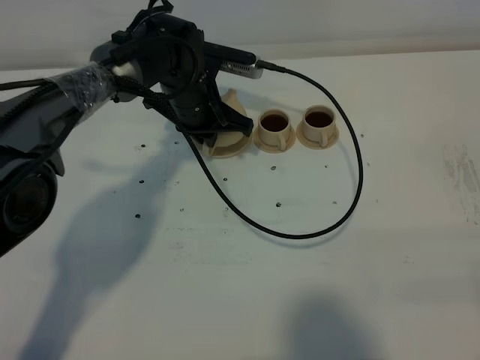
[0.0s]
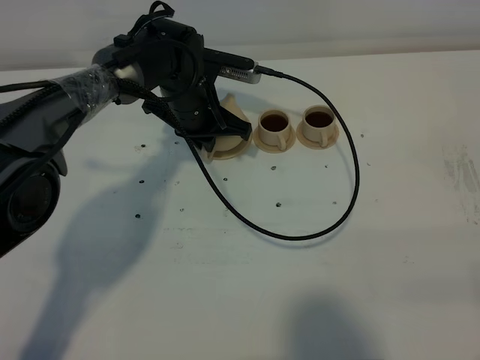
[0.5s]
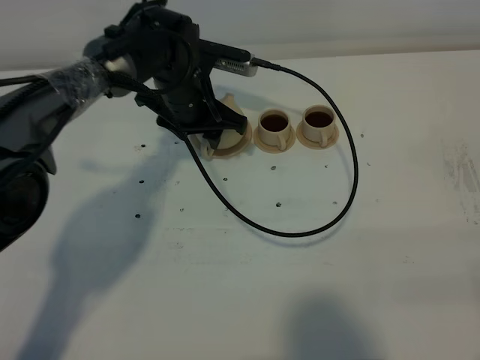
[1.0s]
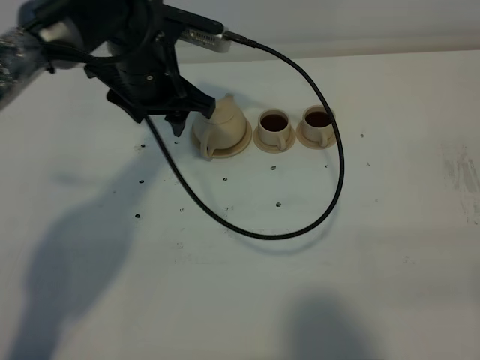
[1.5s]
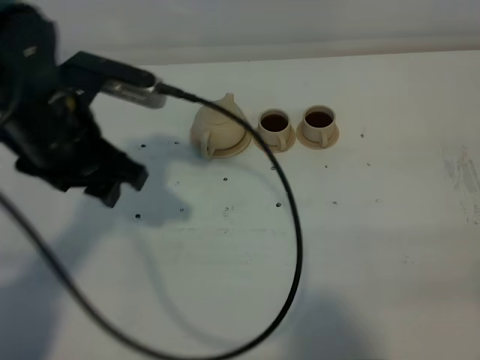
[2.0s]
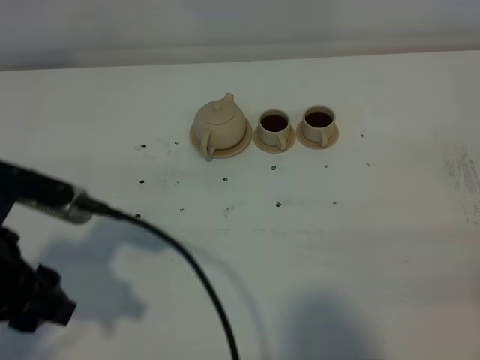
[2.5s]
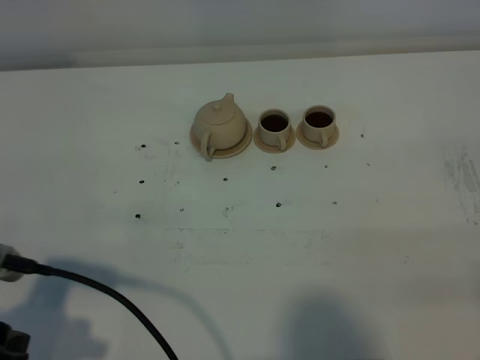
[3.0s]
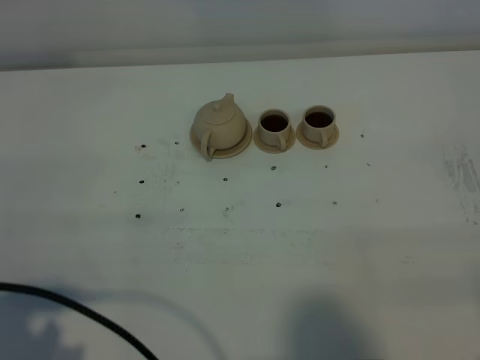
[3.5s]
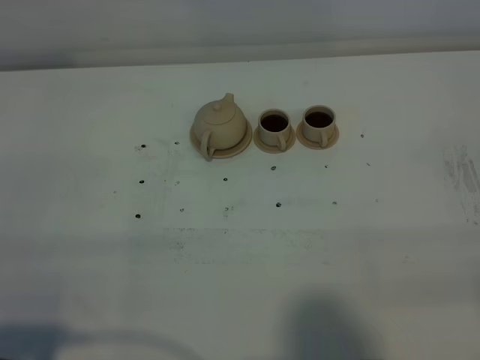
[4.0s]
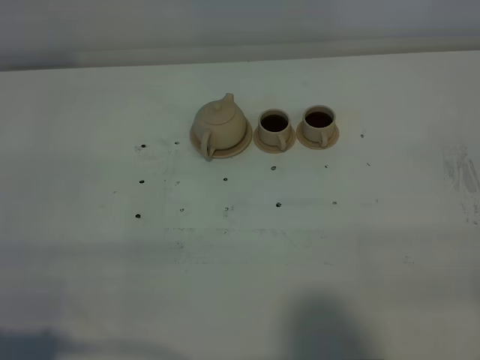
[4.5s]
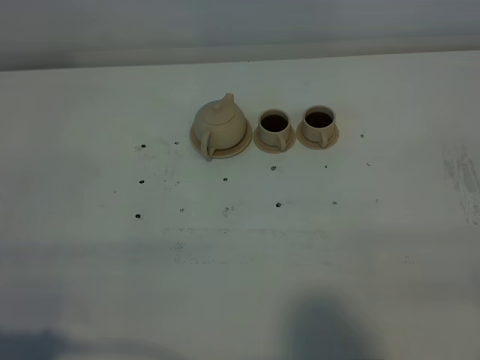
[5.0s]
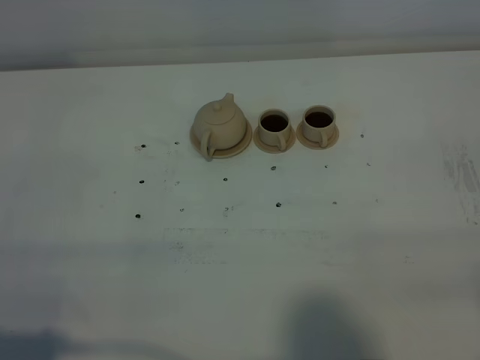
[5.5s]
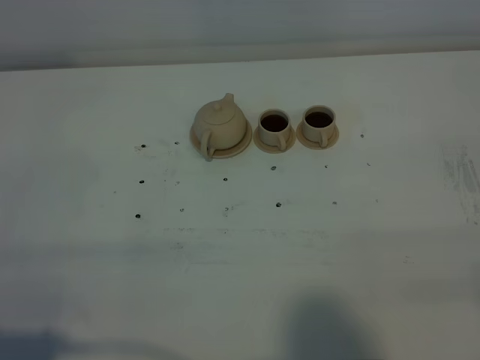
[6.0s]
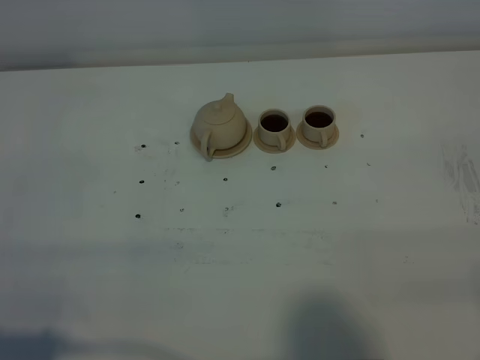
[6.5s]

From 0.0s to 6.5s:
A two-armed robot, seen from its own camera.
Task of the whole recording: grasp the brown teapot and pour the tea into the two brown teacups one by one, put the brown teapot back in its original place.
From 0.0s to 2.0s: The left gripper travels backward, upward and to the left by some 25 cm, and opens its fingers.
From 2.0s to 4.5s: The left gripper moves backward and to the left, some 30 cm.
From 4.5s to 6.5s: Both grippers stay put.
